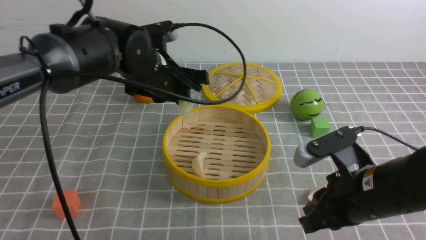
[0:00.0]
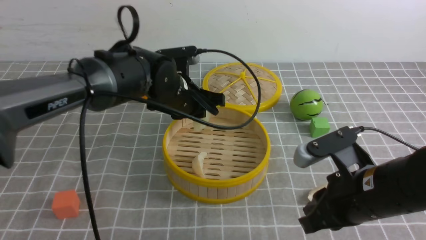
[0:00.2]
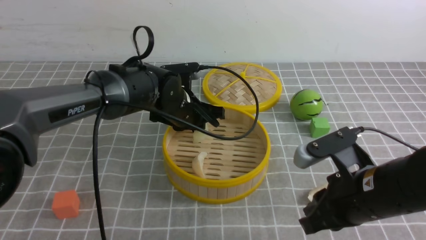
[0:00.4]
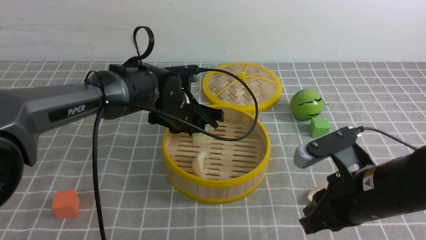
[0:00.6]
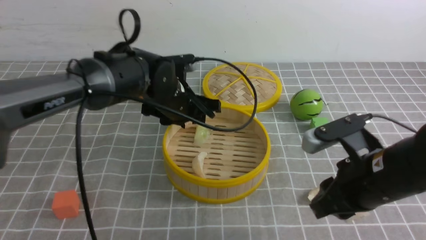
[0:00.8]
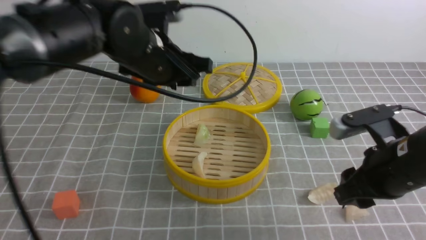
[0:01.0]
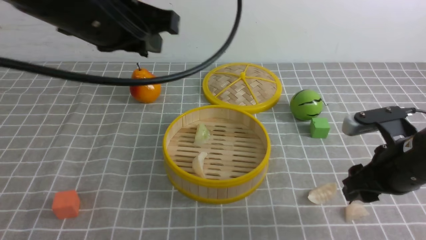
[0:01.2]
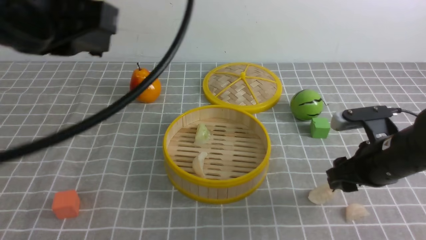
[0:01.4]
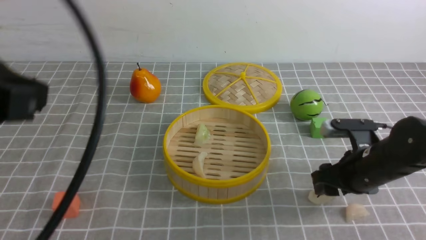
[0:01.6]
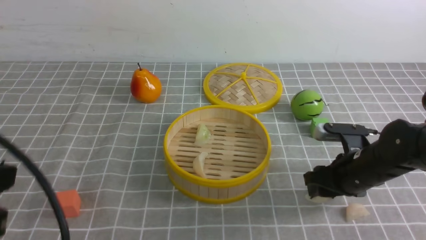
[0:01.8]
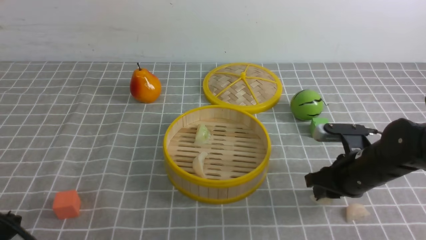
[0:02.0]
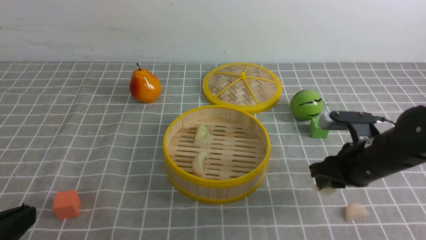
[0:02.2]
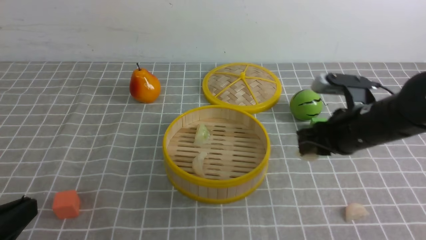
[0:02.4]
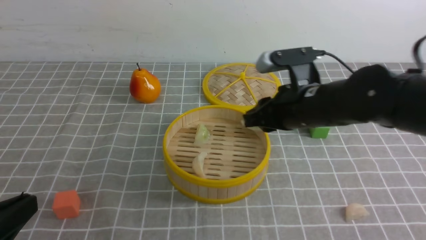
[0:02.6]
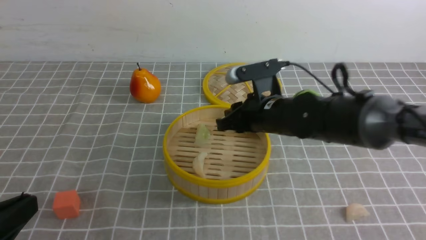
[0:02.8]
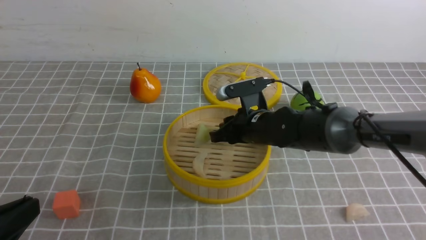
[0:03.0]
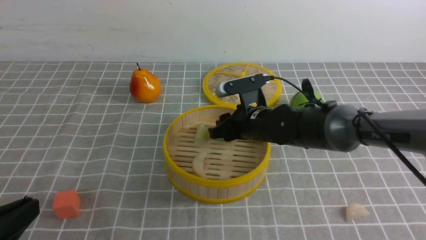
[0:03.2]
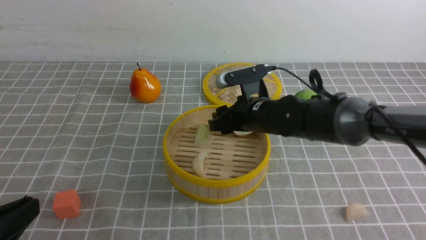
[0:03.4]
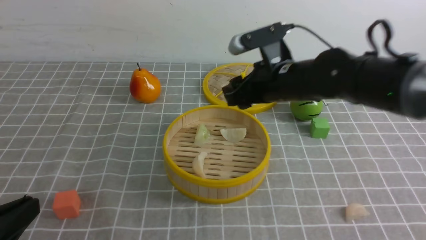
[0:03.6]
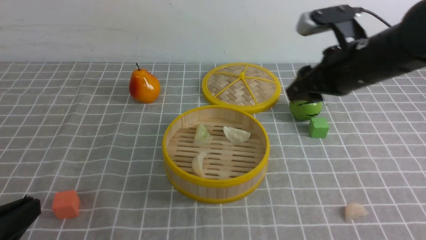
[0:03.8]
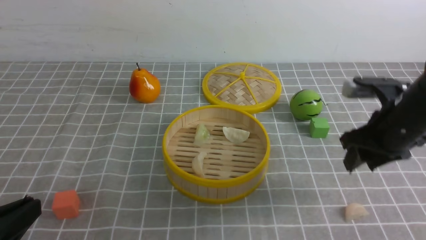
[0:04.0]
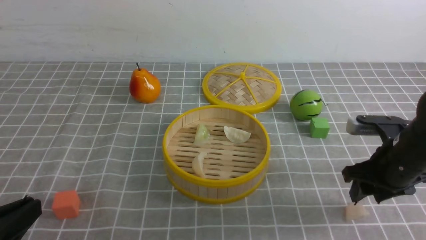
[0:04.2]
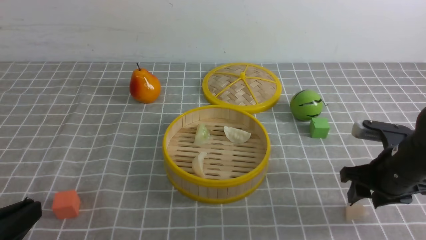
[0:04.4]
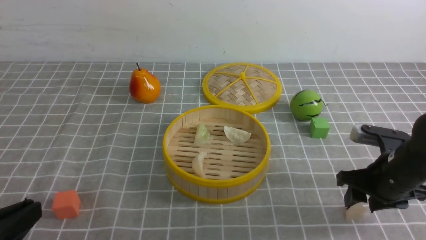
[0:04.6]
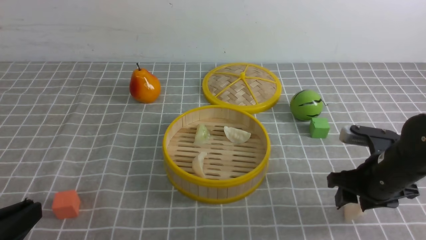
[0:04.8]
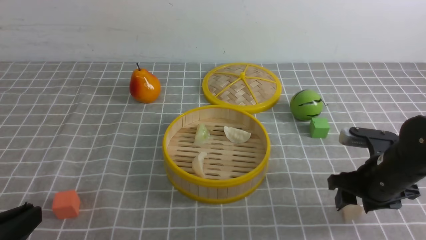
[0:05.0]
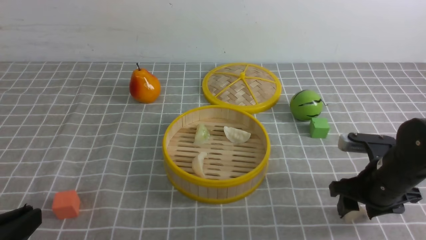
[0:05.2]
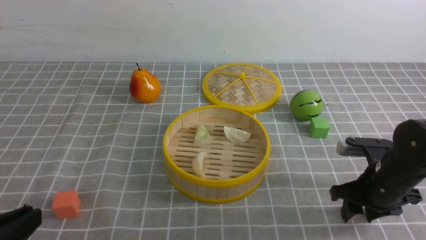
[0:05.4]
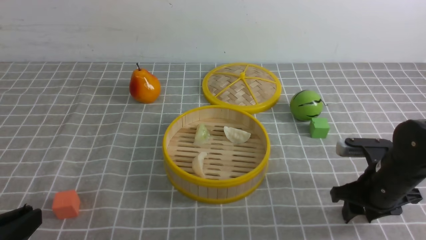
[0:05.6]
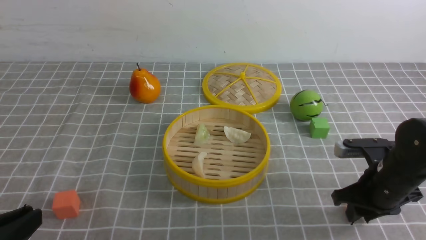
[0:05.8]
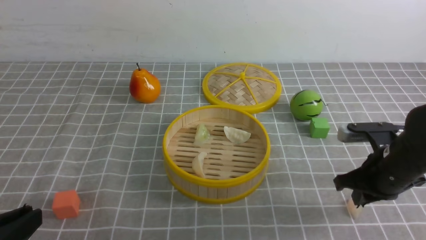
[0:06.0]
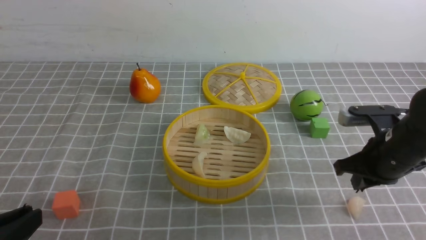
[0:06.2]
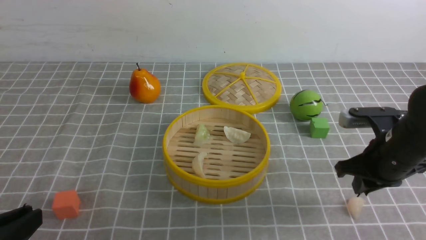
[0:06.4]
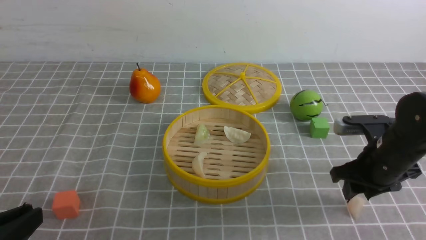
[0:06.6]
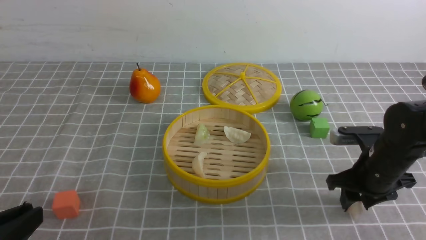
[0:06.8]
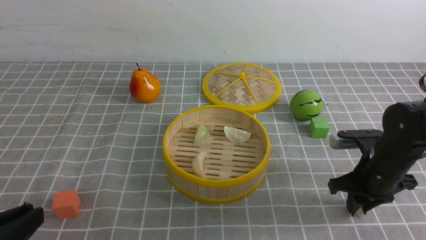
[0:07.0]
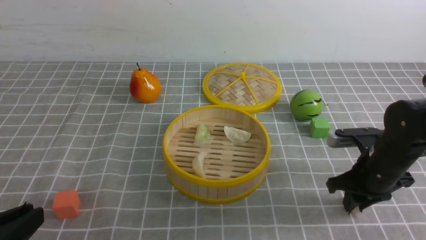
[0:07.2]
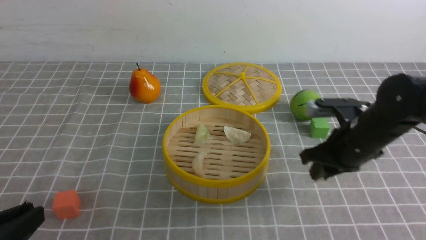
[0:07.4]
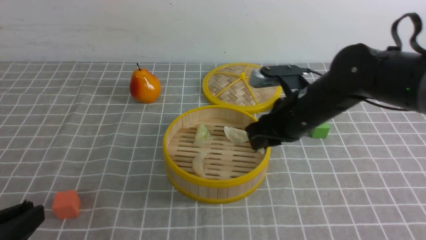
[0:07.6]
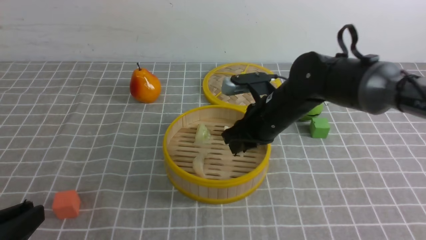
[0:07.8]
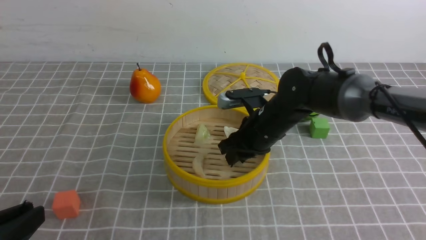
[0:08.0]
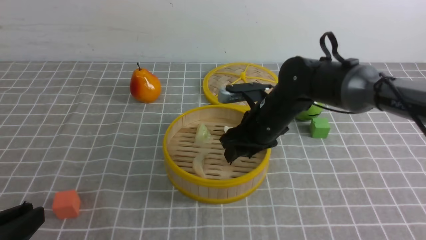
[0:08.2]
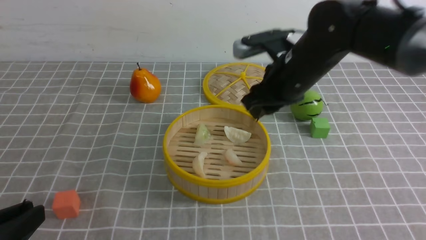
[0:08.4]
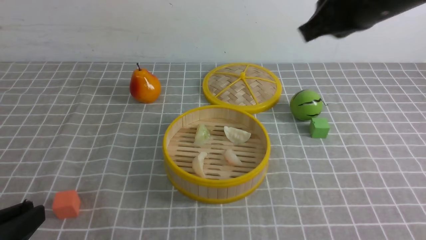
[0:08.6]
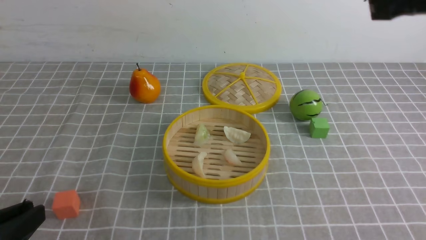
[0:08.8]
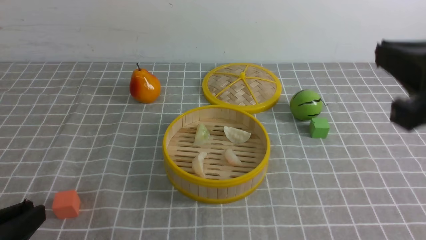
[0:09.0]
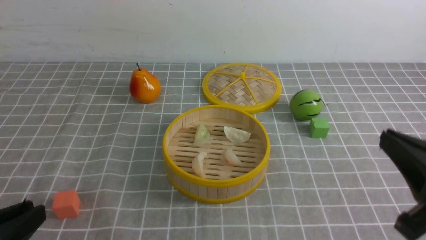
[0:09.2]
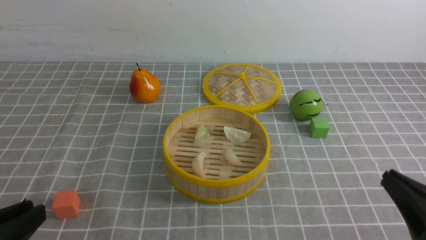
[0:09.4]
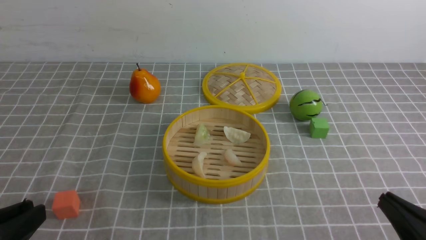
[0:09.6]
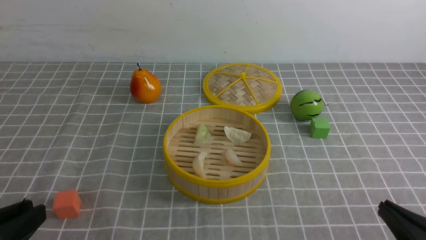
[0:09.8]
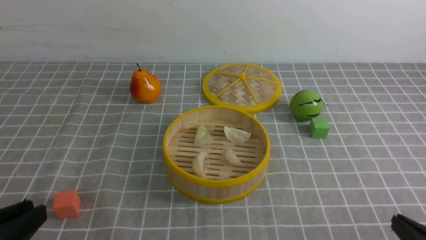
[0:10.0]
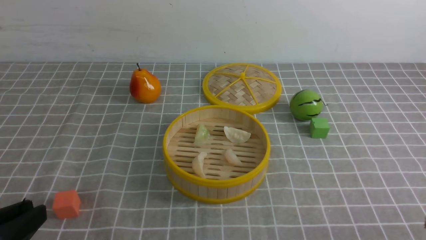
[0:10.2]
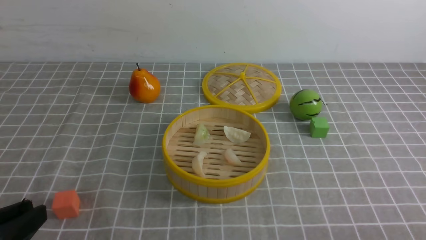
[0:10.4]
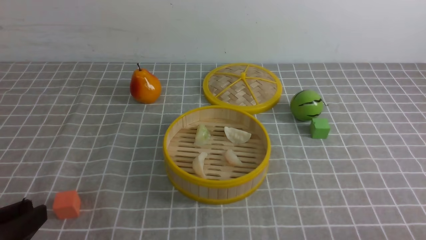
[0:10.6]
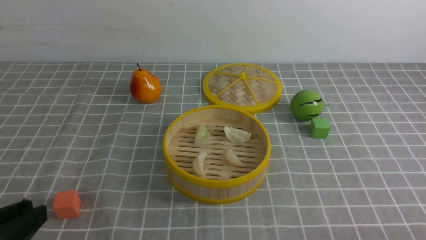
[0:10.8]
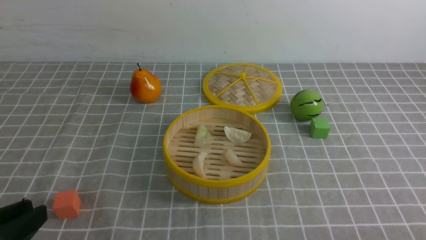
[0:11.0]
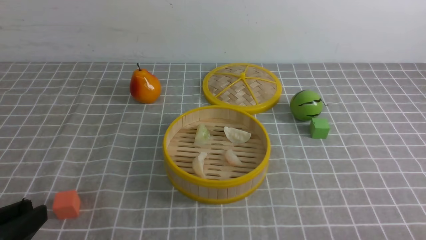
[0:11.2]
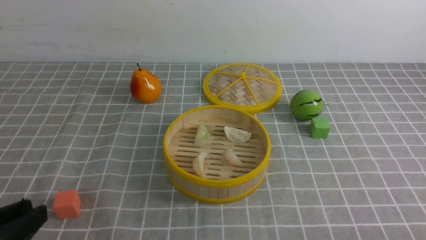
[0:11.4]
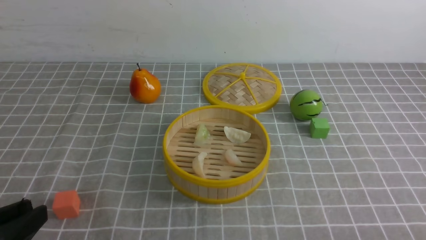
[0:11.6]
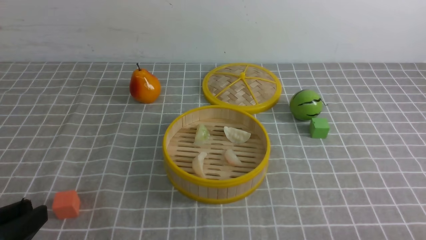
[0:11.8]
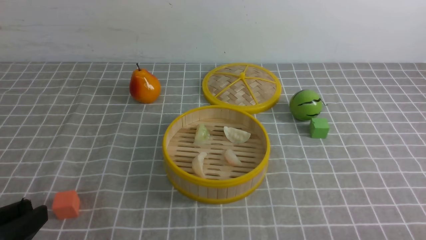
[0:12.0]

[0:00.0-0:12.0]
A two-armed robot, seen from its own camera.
Task of the whole recording: put the dumplings into the steamer on the table with the grey tablecloth.
Step, 0:00.0 to 0:00.8: use the left arm to put the dumpling into the steamer.
Step, 0:01.0 to 0:02.0: use the right arm to grab a dumpling.
Step, 0:02.4 to 0:03.2: use the right arm to put the dumpling into the steamer.
Step, 0:03.6 to 0:07.2: use the right arm to grab a dumpling.
Step, 0:07.4 to 0:08.2: use the right arm to put the dumpling into the steamer.
0:00.0 to 0:01.6: The left gripper is displaced backward, upward and to the left by approximately 35 cm, and closes. The right gripper shifts approximately 10 cm forward, to the right and downward, and opens its fingers.
0:01.6 to 0:03.0: The right gripper shifts about 20 cm to the left and forward, and closes its fingers. Meanwhile the left gripper heads downward and backward, covering some 15 cm.
0:03.0 to 0:04.4: The right gripper shifts approximately 20 cm to the right and backward.
0:04.4 to 0:06.0: The right gripper closes up.
0:06.0 to 0:07.6: The right gripper travels to the left and forward by approximately 15 cm.
0:07.6 to 0:09.0: The right gripper shifts approximately 25 cm backward, upward and to the right, and closes up.
0:09.0 to 0:10.4: The right gripper moves downward, backward and to the right, some 20 cm.

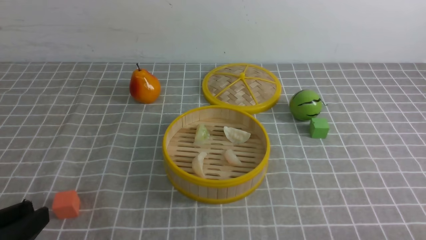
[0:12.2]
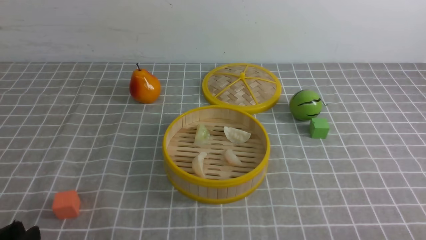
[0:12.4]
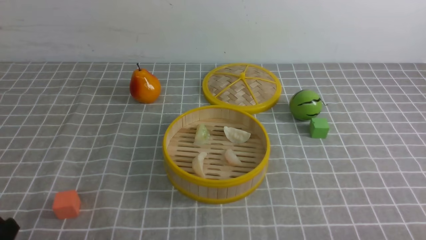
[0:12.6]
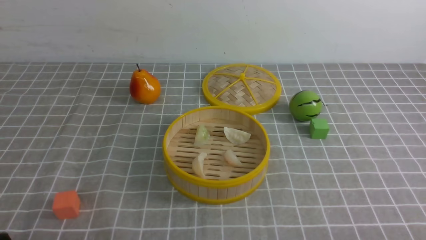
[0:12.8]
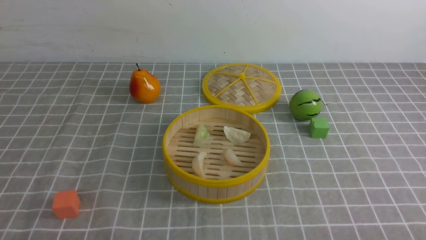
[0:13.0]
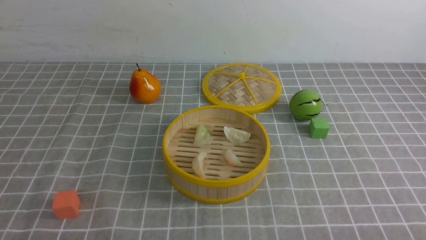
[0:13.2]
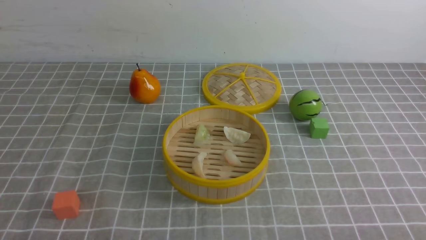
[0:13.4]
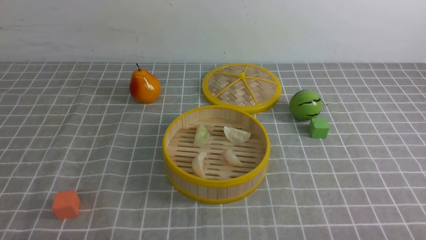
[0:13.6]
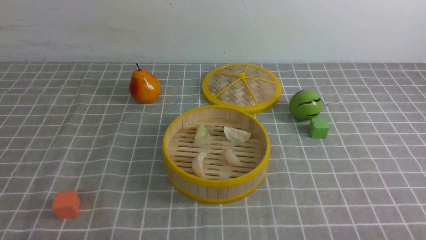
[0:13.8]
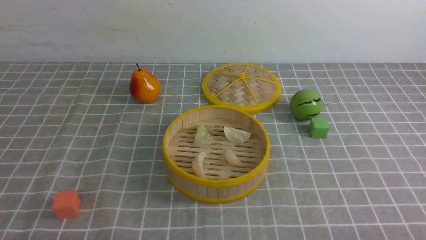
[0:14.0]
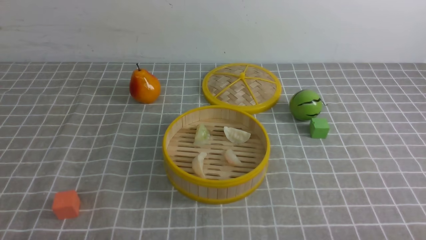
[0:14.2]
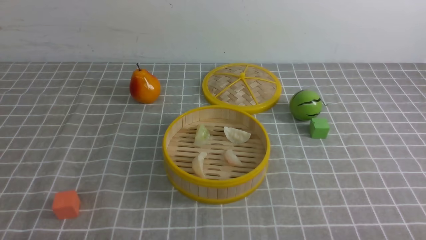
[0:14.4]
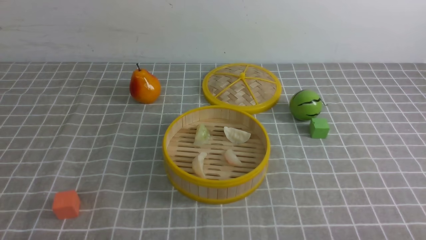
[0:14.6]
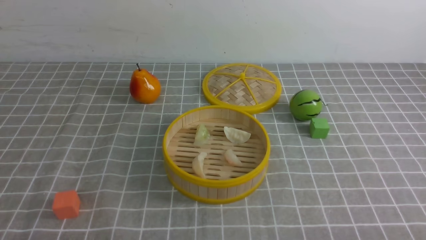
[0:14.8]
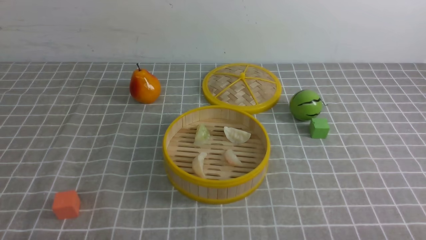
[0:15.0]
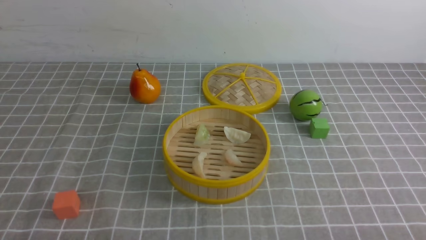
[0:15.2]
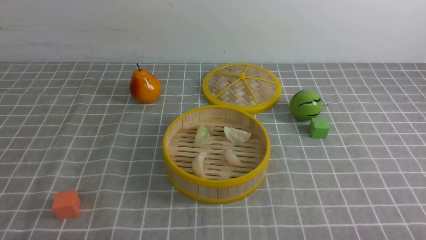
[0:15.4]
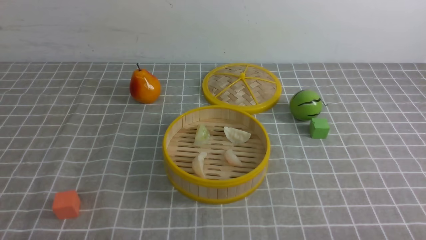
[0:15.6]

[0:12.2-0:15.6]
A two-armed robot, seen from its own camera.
Task of the whole recording: put the dumplings into the steamer on the table with the grey tablecloth.
0:12.2 to 0:13.8: The left gripper moves downward, approximately 10 cm, and closes.
0:13.8 to 0:15.6: Both grippers stay put.
